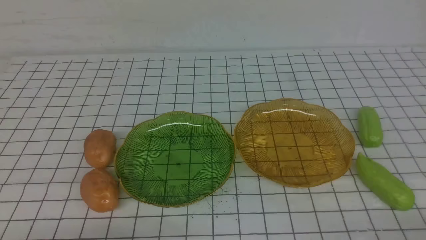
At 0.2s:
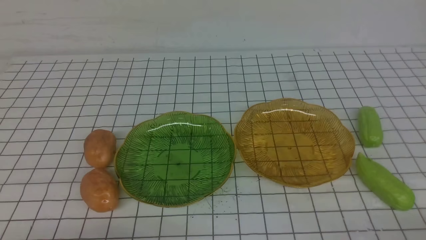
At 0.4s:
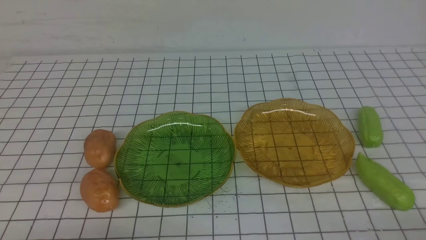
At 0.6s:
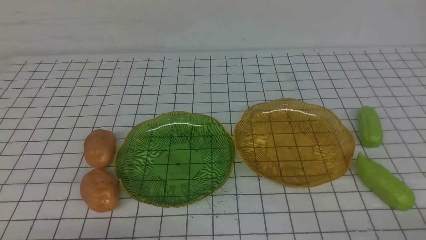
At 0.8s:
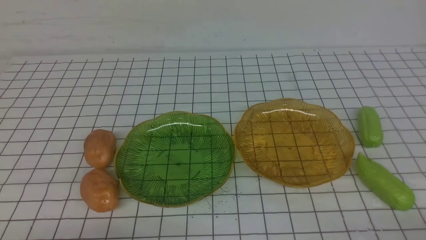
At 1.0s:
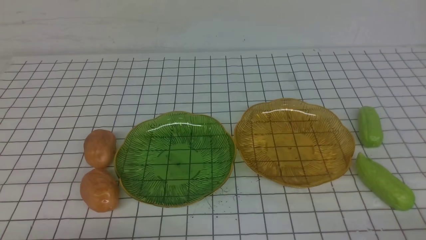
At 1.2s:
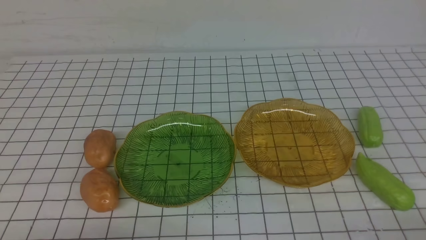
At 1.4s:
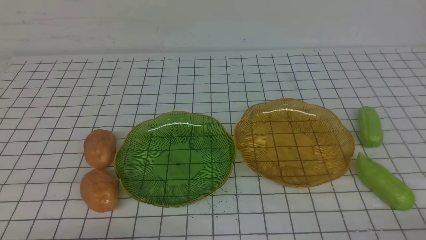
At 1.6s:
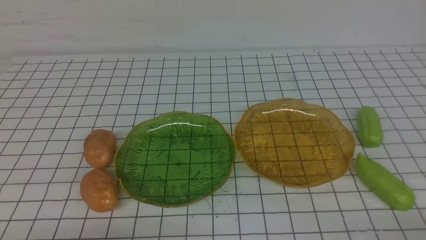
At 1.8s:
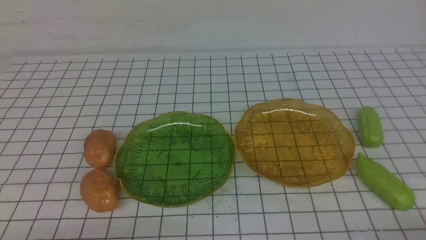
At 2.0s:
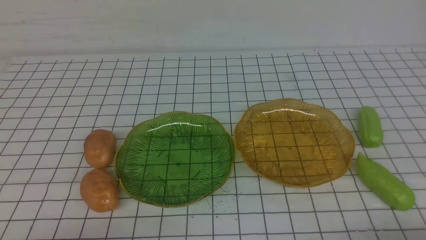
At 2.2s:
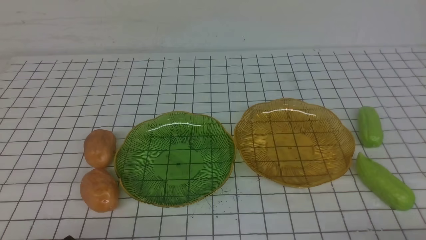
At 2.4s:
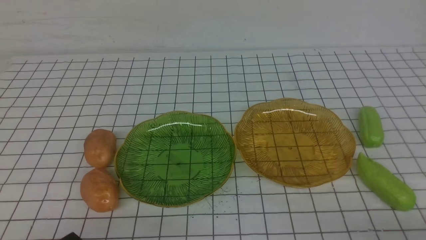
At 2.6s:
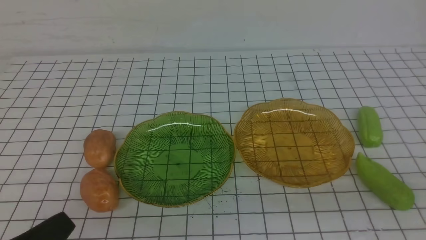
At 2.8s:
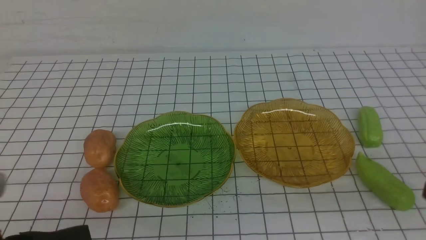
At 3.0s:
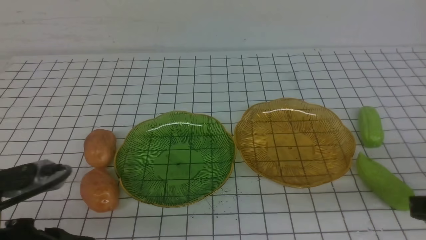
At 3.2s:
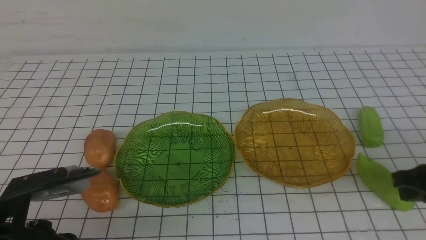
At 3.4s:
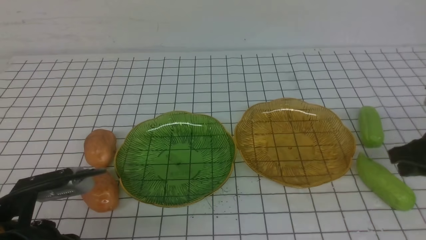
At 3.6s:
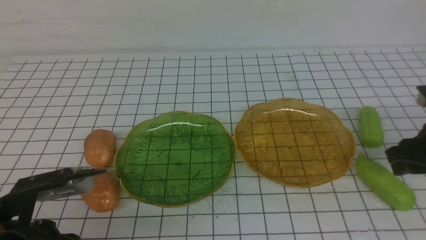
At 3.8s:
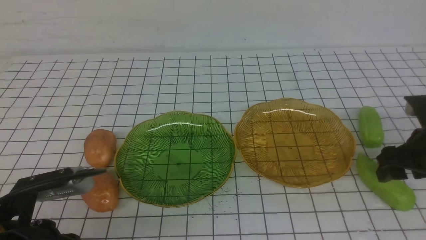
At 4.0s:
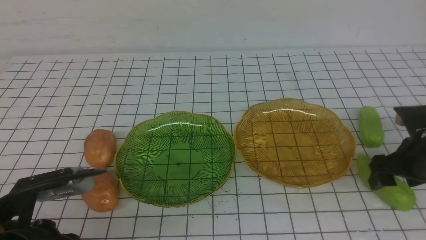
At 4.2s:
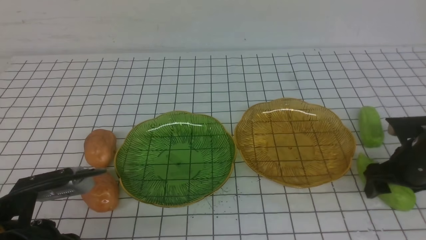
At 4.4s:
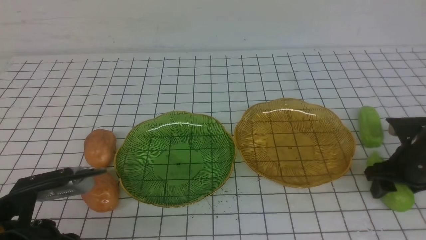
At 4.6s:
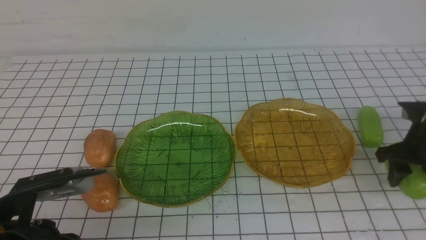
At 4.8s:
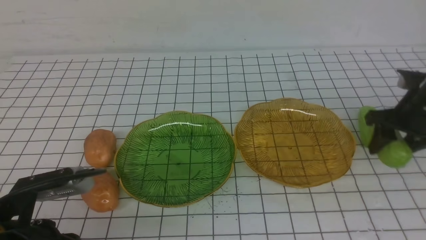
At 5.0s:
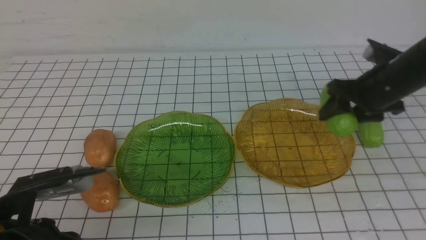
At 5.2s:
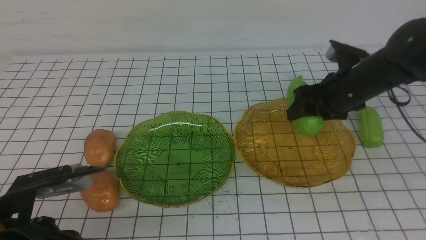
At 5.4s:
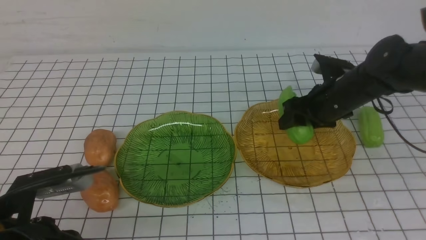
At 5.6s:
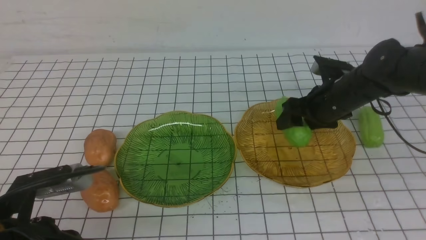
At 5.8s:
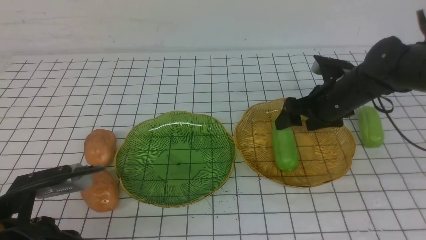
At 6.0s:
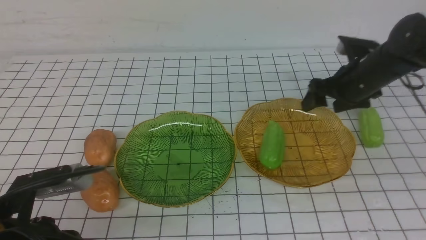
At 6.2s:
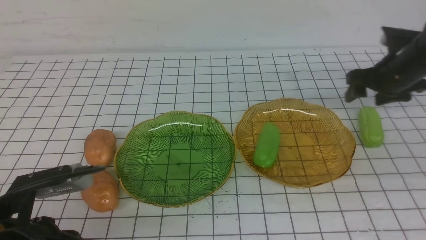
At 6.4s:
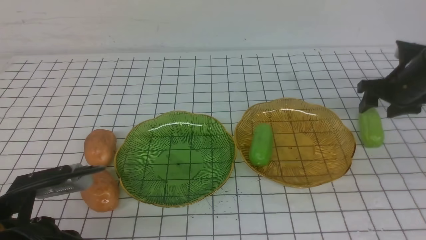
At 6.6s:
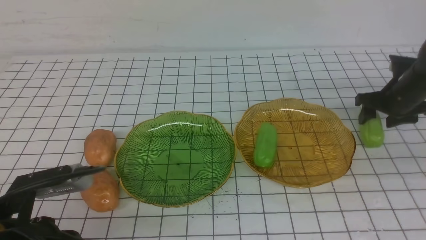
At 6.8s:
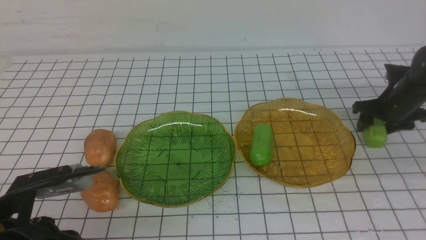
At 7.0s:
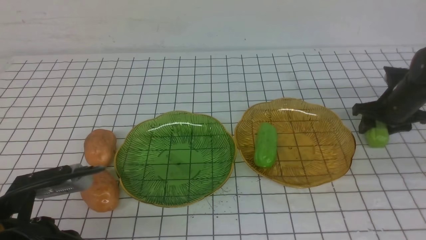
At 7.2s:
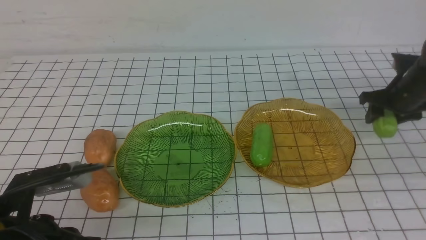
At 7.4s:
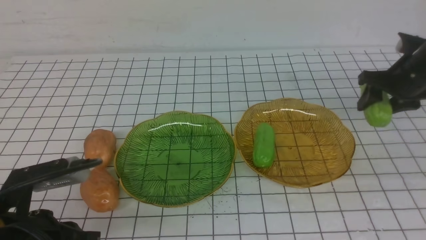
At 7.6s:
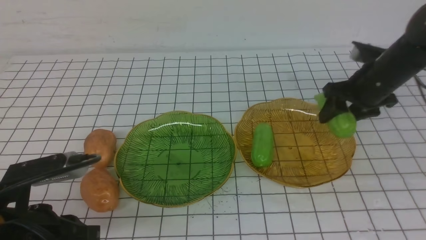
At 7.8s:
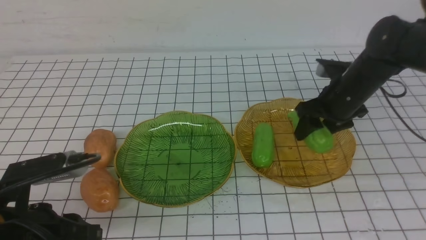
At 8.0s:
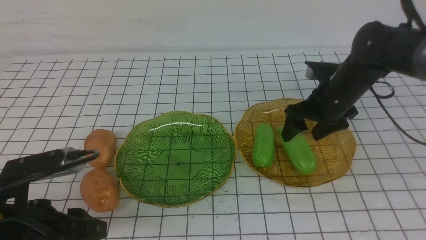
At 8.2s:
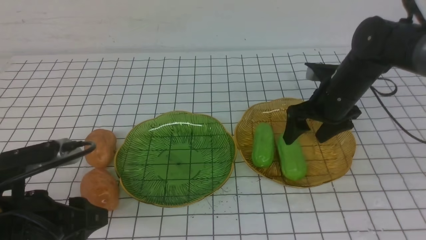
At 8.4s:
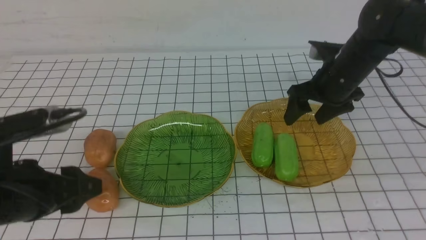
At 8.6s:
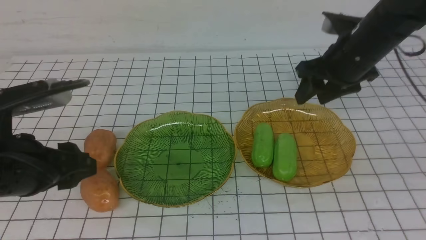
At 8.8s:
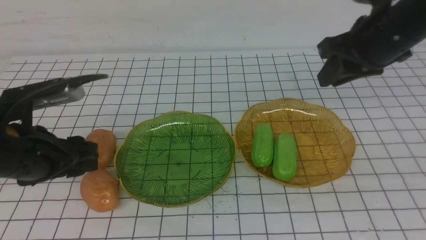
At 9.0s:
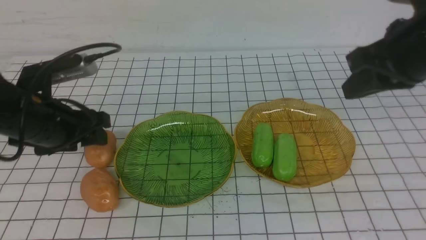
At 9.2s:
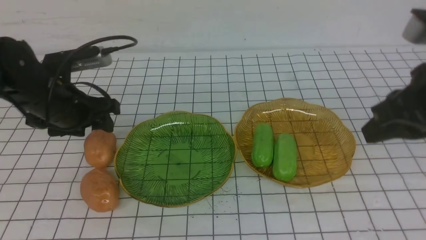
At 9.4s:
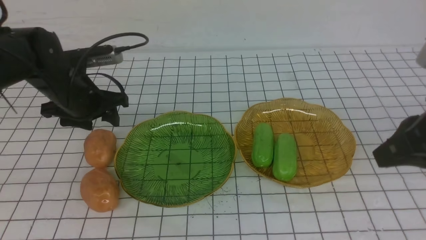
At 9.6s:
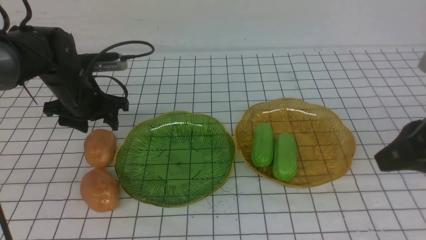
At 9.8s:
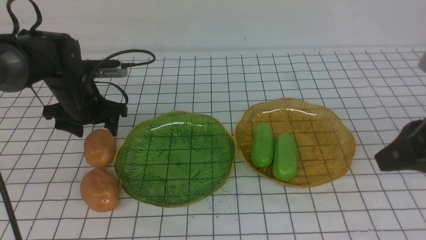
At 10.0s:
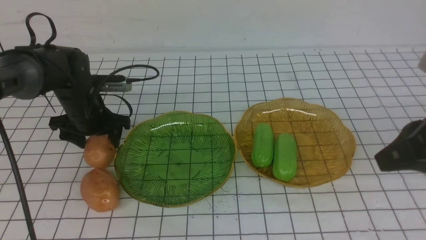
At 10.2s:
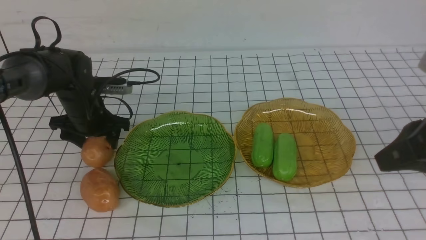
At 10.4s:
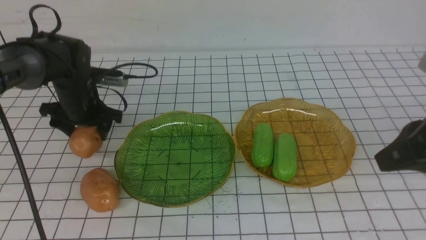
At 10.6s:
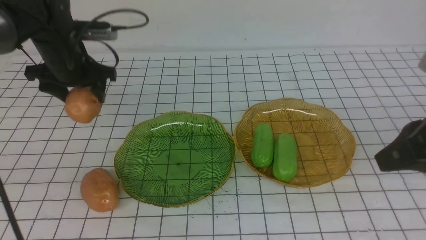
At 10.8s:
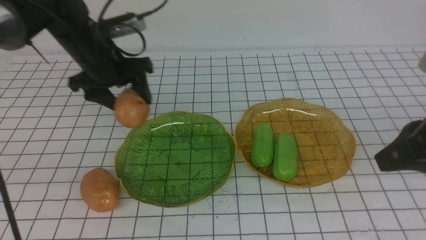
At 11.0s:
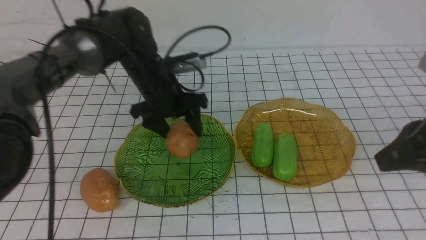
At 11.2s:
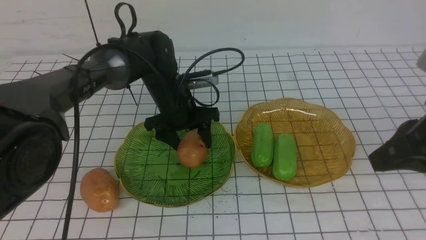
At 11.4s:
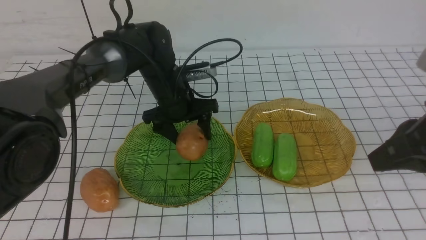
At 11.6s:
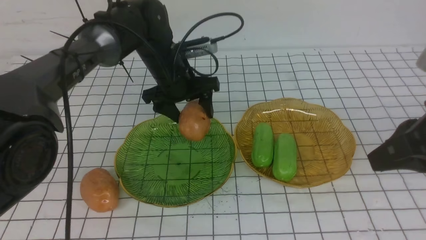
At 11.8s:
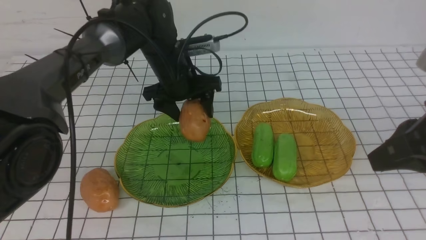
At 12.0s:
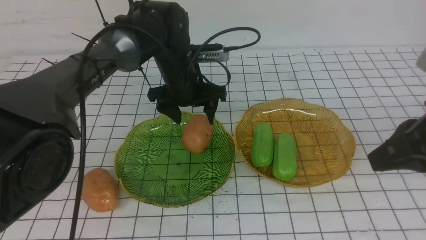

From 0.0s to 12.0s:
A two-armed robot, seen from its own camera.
Step, from 0.0s to 8.0s: use the right arm to grab a chayote and put it into the right plate.
From 0.0s to 1.6s: Both grippers stay put.
From 1.6s to 3.0s: The right gripper travels forward and upward by about 15 cm; the left gripper moves upward and forward, about 10 cm.
From 3.0s to 4.4s: The right gripper shifts some 20 cm forward and downward, and opens its fingers.
From 4.4s to 6.0s: The right gripper is displaced forward, to the left and upward by some 15 cm.
From 6.0s to 7.6s: The right gripper reaches roughly 10 cm to the right, then returns.
From 7.6s to 9.0s: The left gripper travels forward by roughly 15 cm, and opens its fingers; the right gripper is displaced upward and backward by about 20 cm, and closes up.
From 9.0s to 10.4s: The left gripper goes approximately 15 cm forward. Meanwhile the right gripper travels backward by about 10 cm.
From 10.4s to 12.0s: The left gripper moves to the right, approximately 15 cm.

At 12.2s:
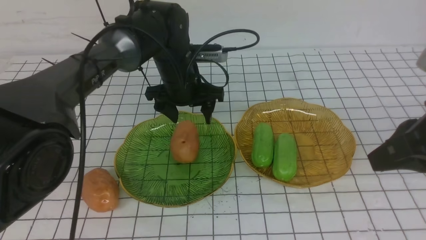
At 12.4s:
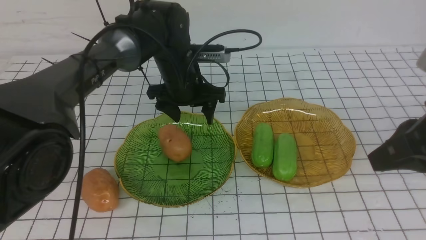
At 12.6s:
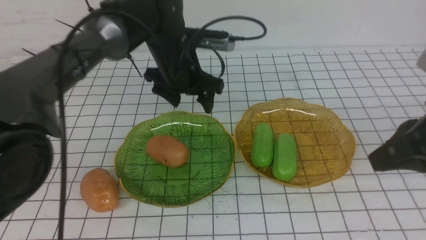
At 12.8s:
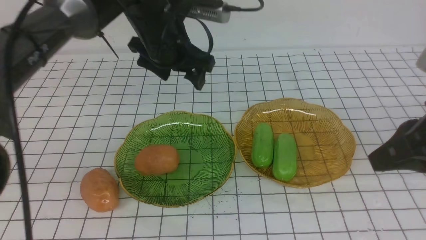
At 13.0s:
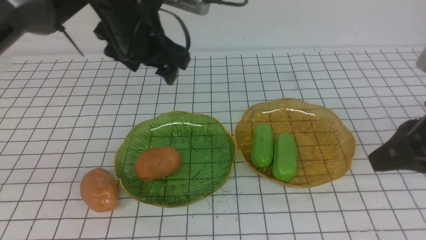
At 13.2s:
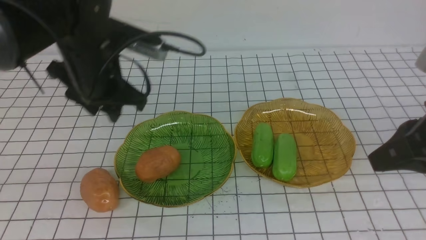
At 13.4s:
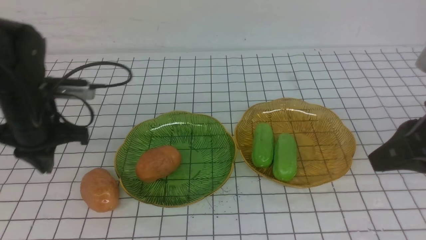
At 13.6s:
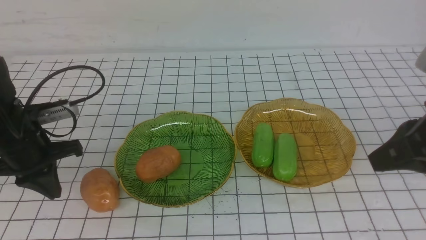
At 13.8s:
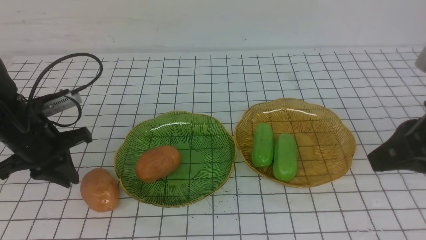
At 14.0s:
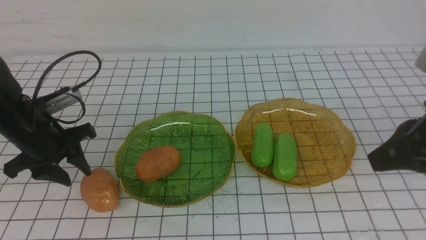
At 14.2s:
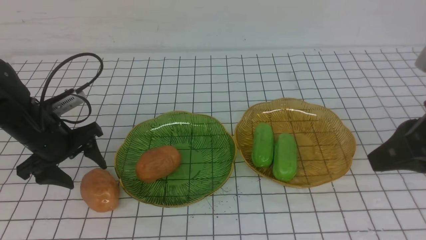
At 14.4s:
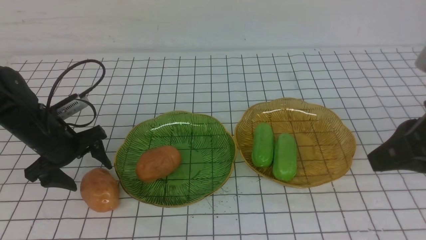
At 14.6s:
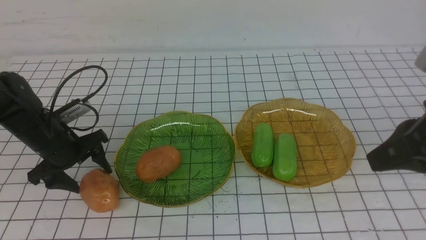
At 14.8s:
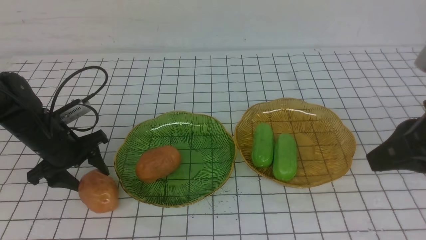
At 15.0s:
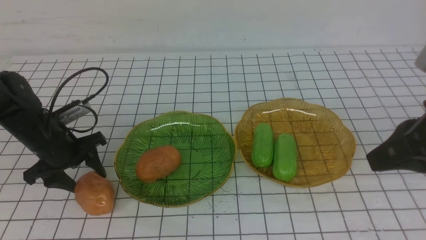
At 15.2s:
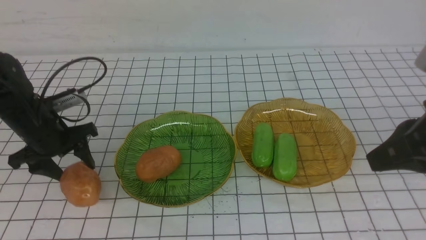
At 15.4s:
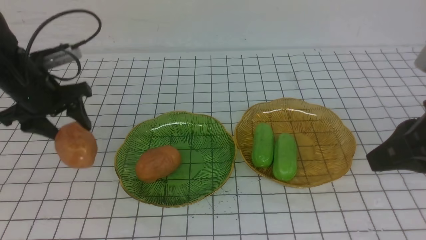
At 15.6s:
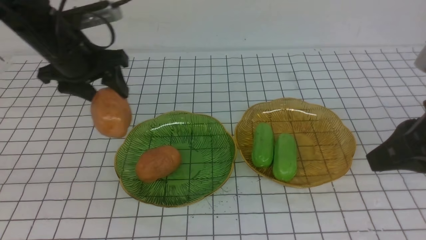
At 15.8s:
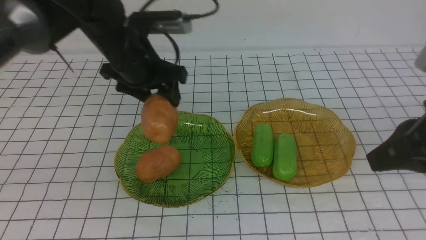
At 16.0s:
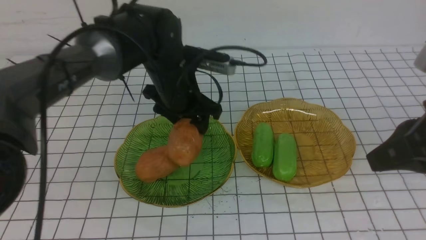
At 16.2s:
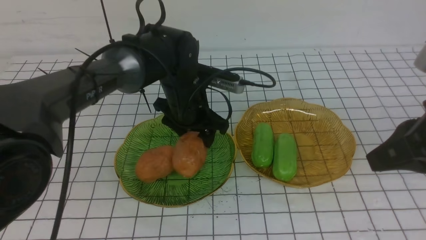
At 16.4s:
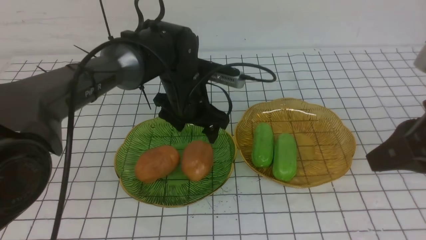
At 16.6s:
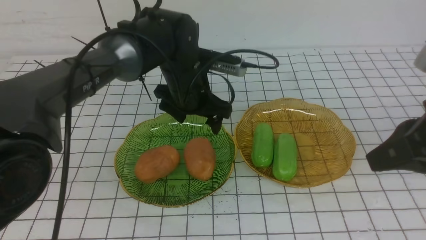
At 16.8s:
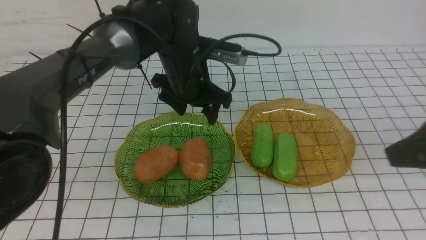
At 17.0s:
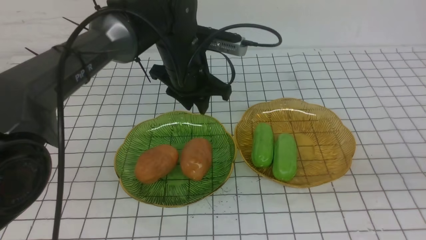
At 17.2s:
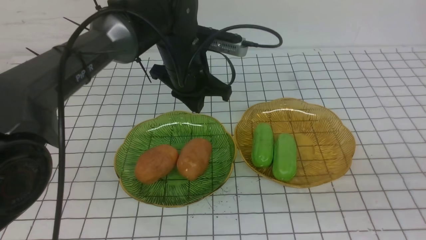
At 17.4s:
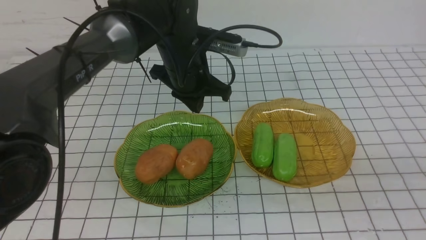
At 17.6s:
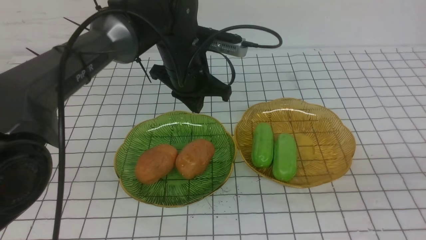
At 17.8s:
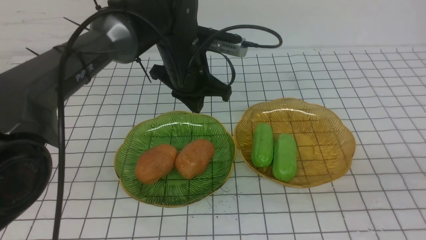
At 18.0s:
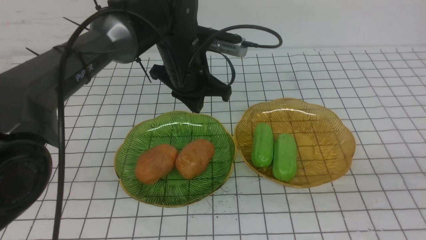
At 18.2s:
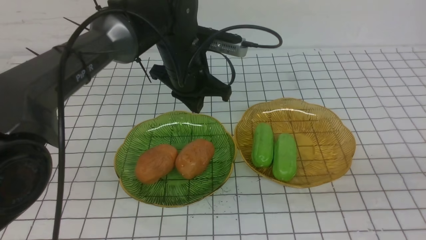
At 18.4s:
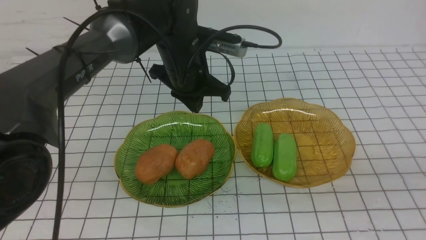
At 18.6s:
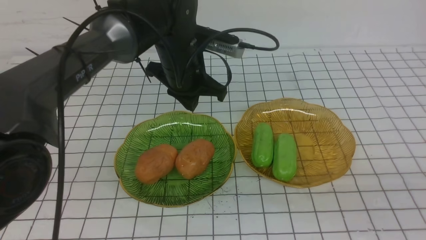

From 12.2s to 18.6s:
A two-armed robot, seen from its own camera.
Step, from 12.2s to 16.4s: Grab a potato with your left arm and put it on the left plate.
From 12.2s to 13.8s: The left gripper heads to the left and backward, covering approximately 25 cm, and closes its fingers.
From 13.8s to 15.4s: The left gripper is displaced forward and upward by some 10 cm, and opens.
From 15.4s to 17.0s: The right gripper goes some 10 cm backward. Meanwhile the left gripper moves to the right, some 20 cm, and closes its fingers.
From 17.0s to 18.6s: The right gripper is displaced downward by some 10 cm.
